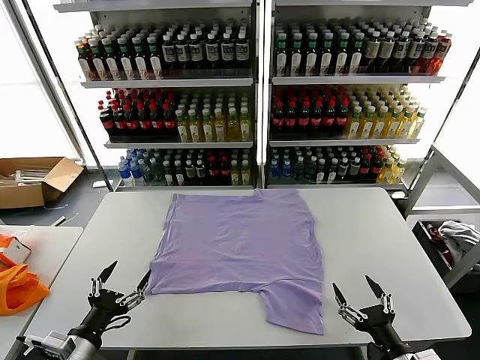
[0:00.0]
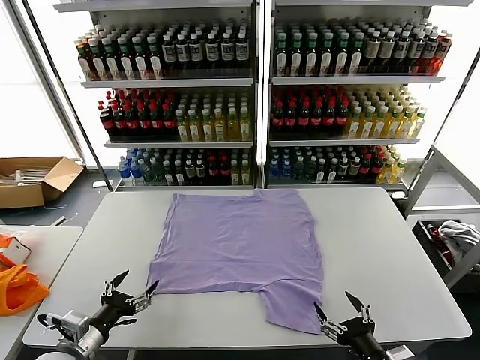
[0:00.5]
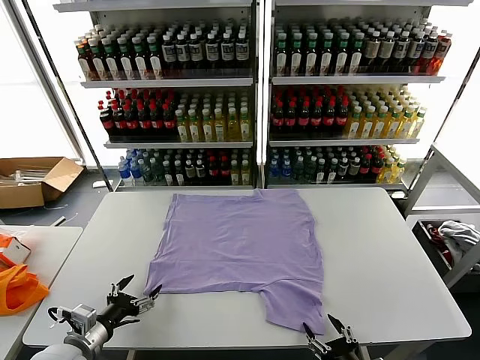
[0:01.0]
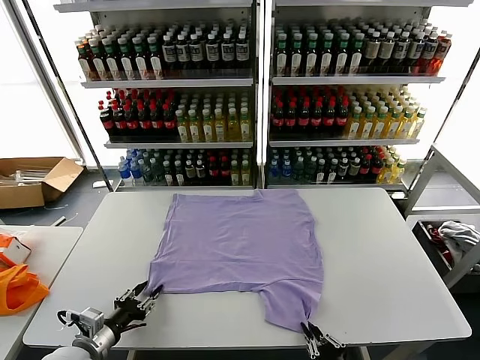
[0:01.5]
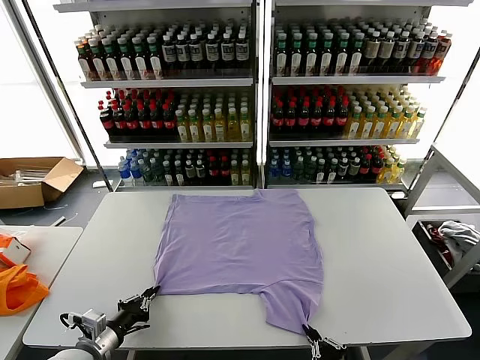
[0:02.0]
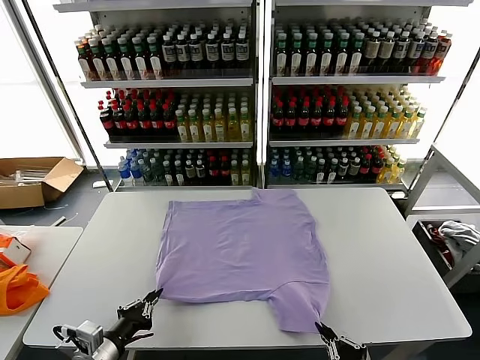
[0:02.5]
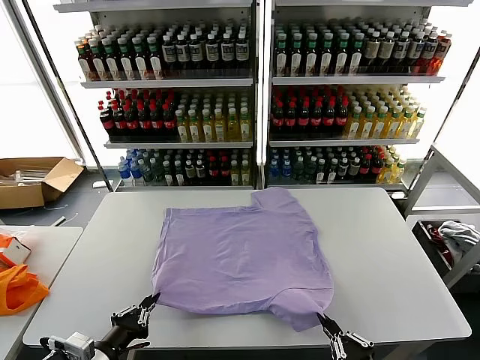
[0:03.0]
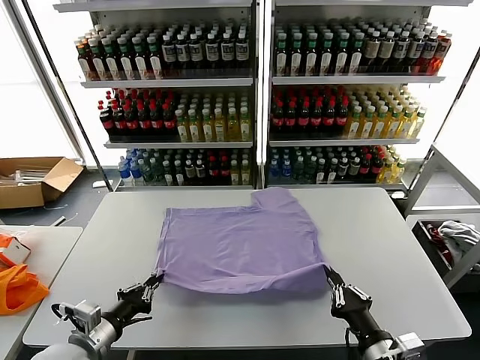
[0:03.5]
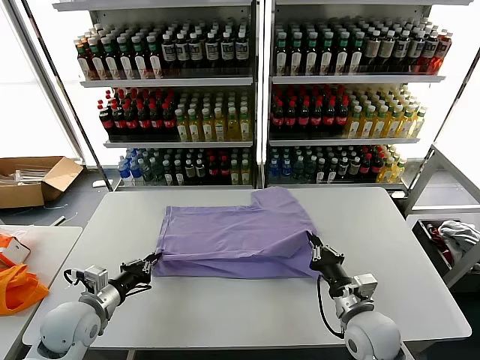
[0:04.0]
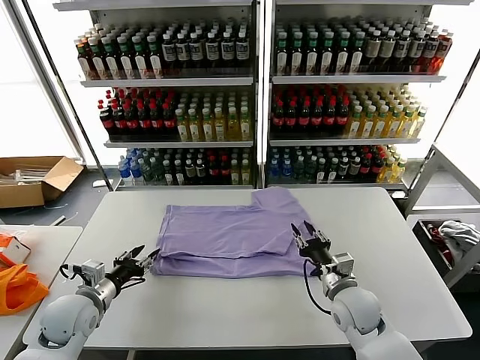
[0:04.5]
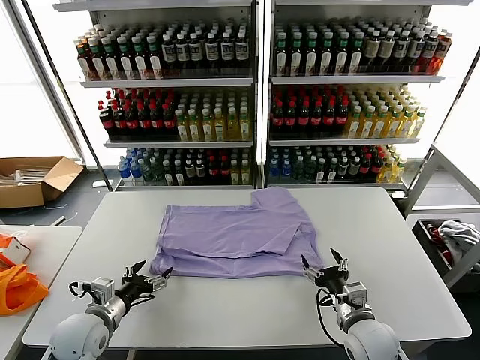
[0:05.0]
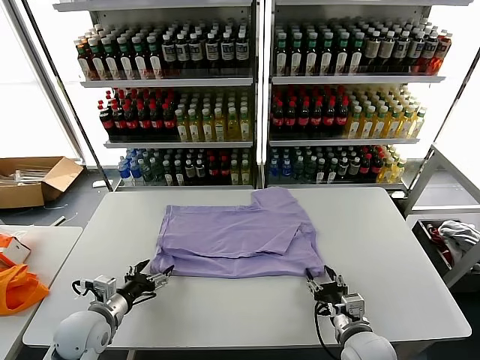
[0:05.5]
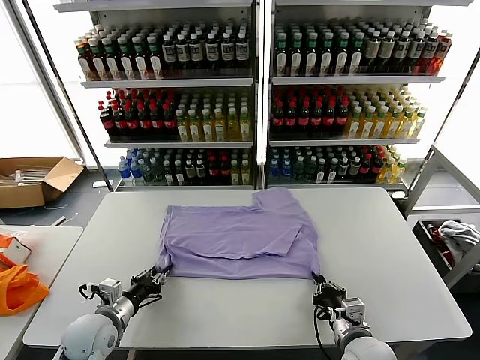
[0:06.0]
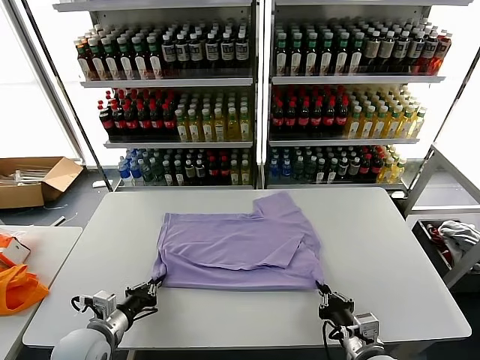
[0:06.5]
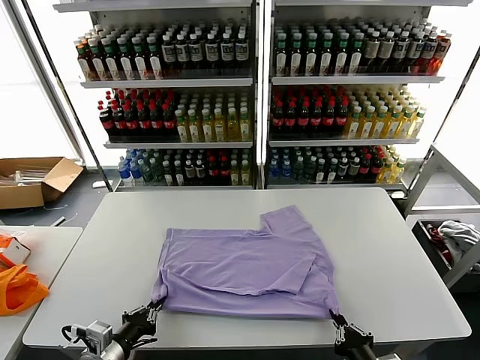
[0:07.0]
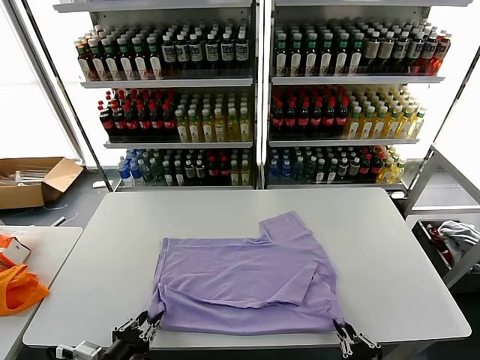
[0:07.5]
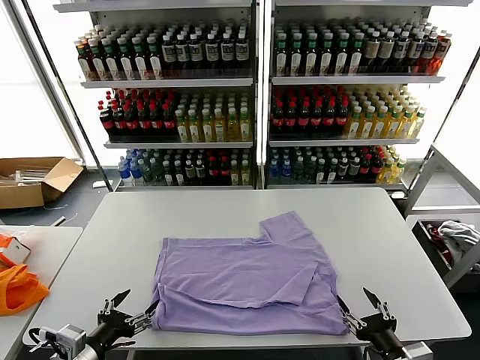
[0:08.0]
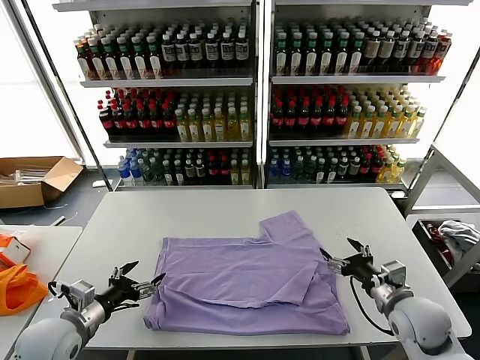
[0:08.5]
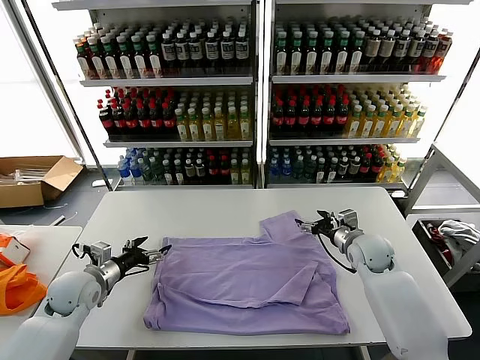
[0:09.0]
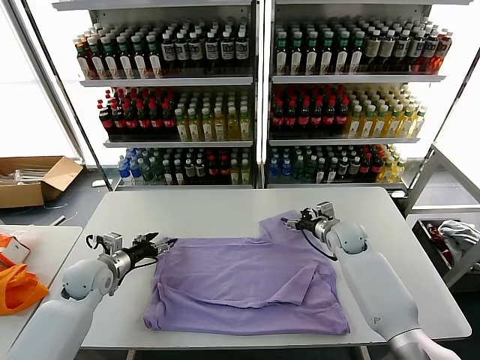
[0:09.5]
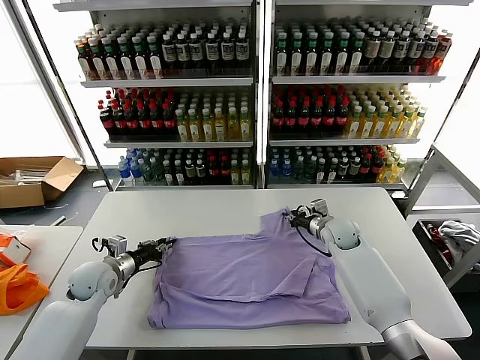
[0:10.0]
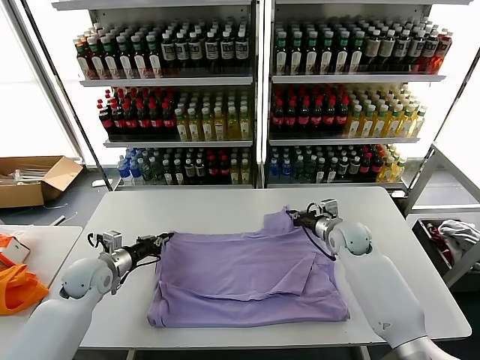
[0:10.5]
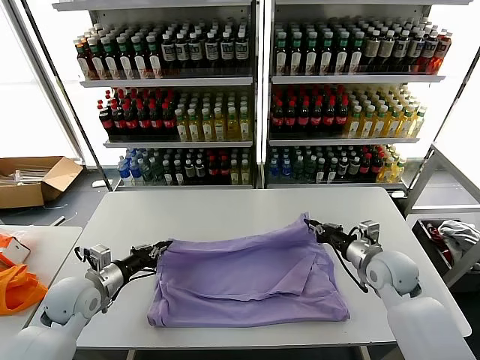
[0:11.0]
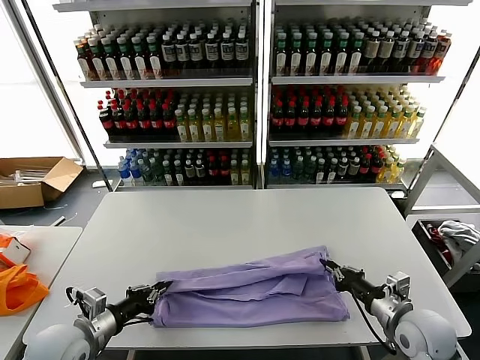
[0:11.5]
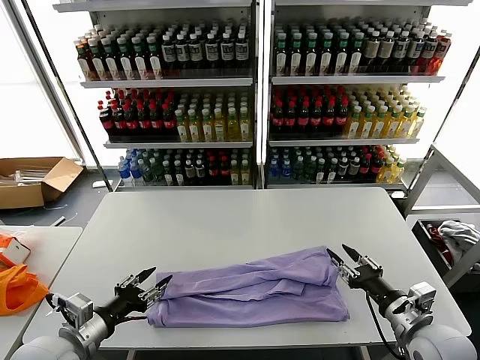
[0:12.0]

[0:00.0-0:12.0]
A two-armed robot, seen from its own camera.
Task of the whole recording: fold and organize the clothes.
Step, 0:00.0 to 0:01.5: use both grippers simultaneously to clamp the lower edge of the clothing fabric.
Step, 0:02.0 to 0:04.5: use both grippers to drag the lower edge of the fabric forward and fold it over the upper edge.
Step, 0:05.0 to 0:07.5: Drag the clothes downward with both gripper.
Step, 0:08.0 to 0:10.0: use both grippers simultaneously to clamp the upper edge of the clothing fabric.
Step, 0:10.5 to 0:11.5: use both grippers to drag the upper edge of the fabric backward and fold it over the lower edge.
0:02.0 to 0:04.0: The left gripper shifts some 10 cm forward, while the right gripper goes approximately 20 cm forward.
0:04.0 to 0:06.0: The right gripper moves backward, some 5 cm, and opens, then closes once more. Meanwhile the left gripper ends up approximately 5 cm from where it was, and opens and closes again.
0:06.0 to 0:08.0: The right gripper is displaced backward, to the right and upward by some 15 cm, and opens up. Meanwhile the left gripper heads backward and upward, covering some 15 cm, and opens.
0:08.0 to 0:10.0: The right gripper goes roughly 40 cm forward, and closes its fingers, while the left gripper travels forward by approximately 25 cm, and closes up.
0:10.0 to 0:12.0: The left gripper is displaced backward by about 20 cm; the right gripper moves backward, roughly 30 cm, and opens.

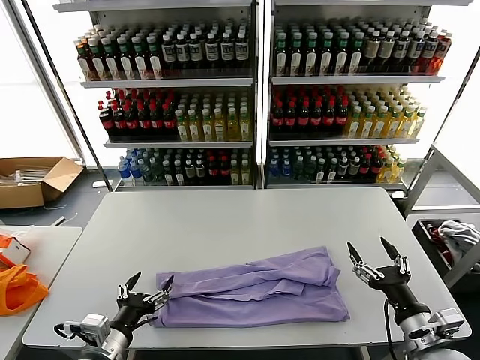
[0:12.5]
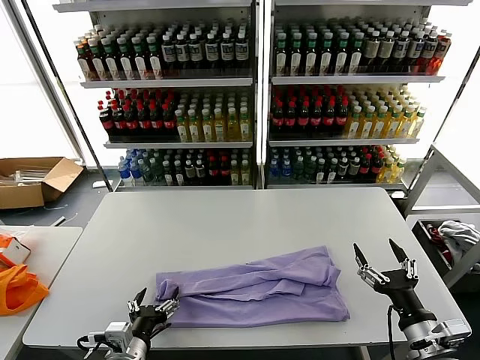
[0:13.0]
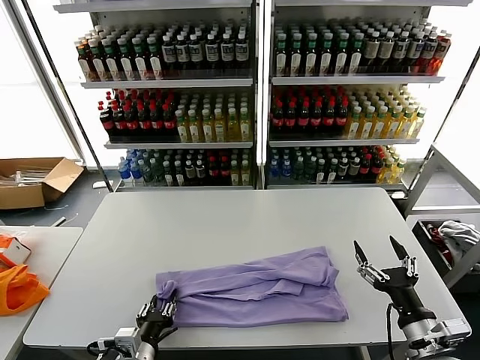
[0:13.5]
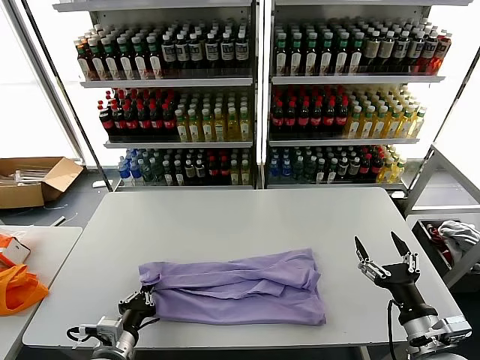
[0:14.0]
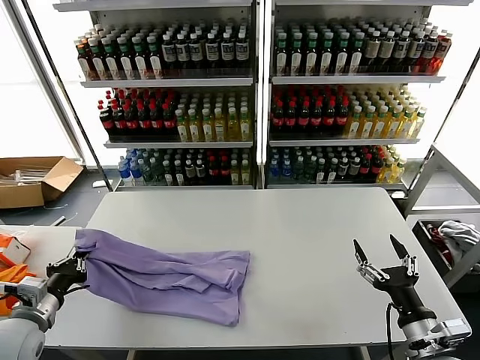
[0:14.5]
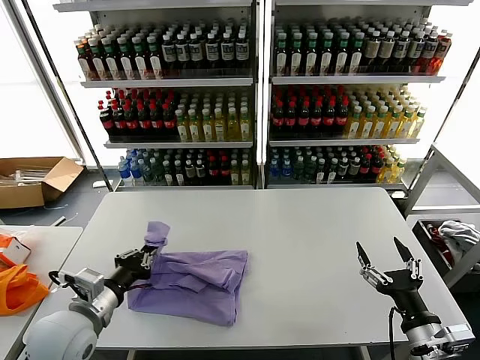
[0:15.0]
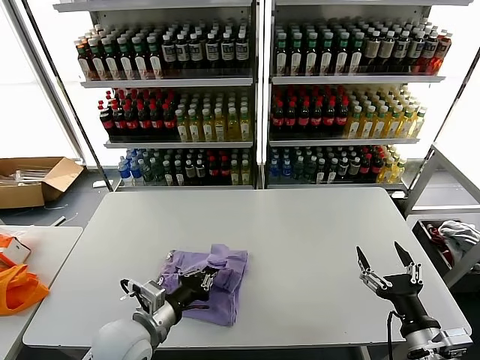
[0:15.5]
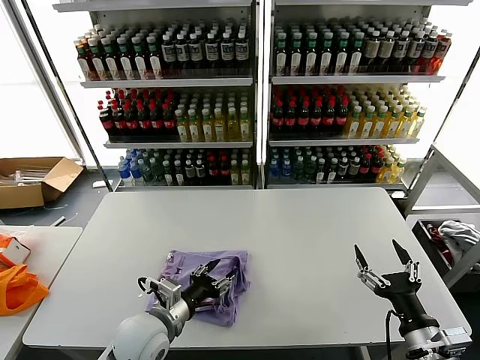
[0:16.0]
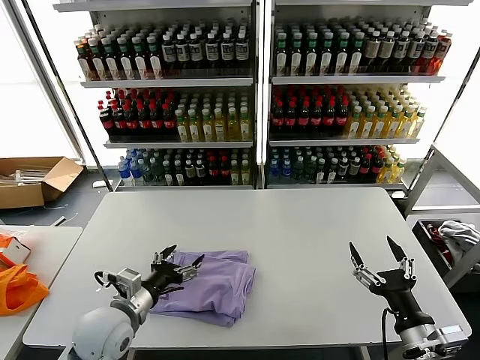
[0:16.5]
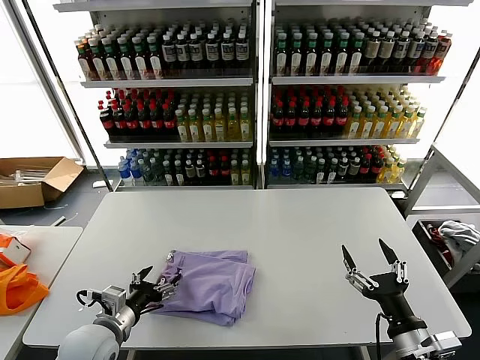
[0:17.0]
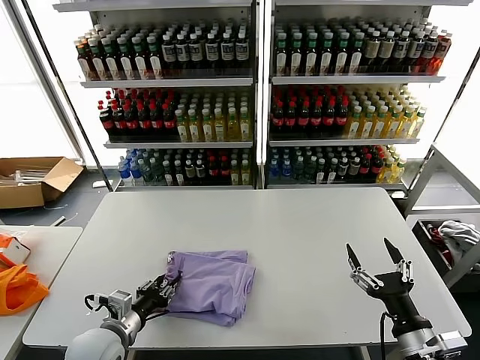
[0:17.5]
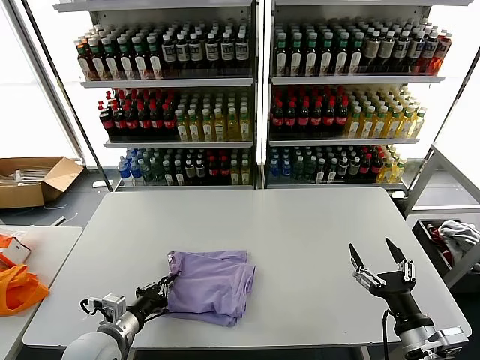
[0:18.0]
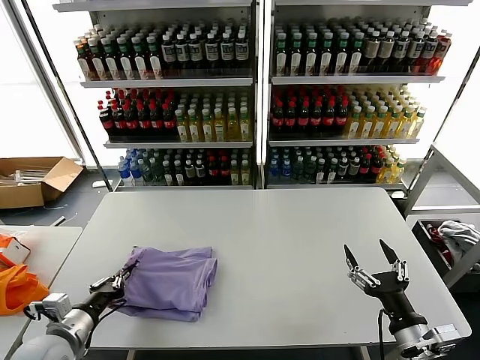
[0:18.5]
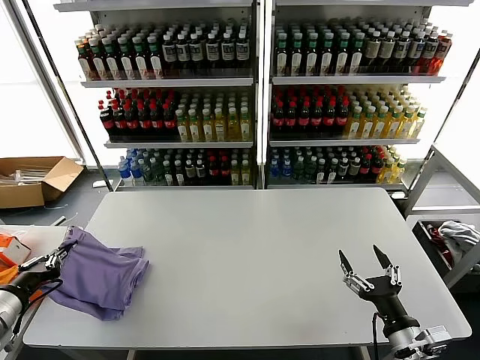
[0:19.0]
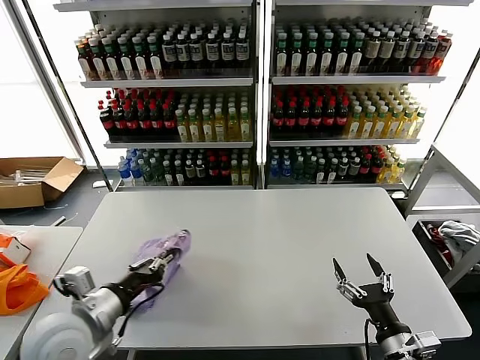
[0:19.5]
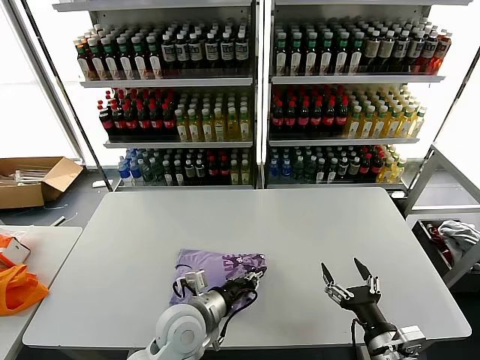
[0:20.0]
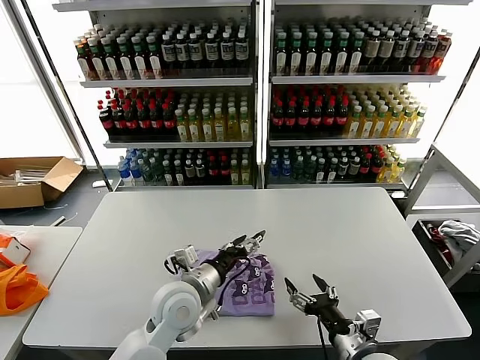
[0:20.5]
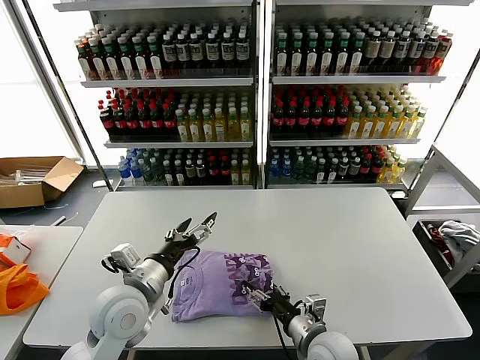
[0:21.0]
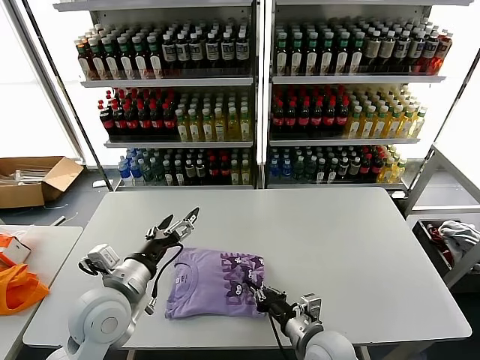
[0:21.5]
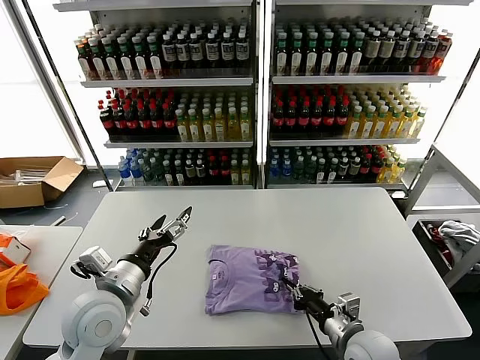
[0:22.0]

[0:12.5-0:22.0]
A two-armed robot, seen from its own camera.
Task of the whole recording: fold and organize the clothes.
Step, 0:12.5 to 0:13.5: use the left gripper to clamp the left edge of the fabric.
Step, 0:14.0 to 0:16.0: use the left gripper to drag the left edge of the fabric to the left and folds it over the right edge.
Step, 0:16.5 to 0:20.0: Flip the folded clothes over with left gripper.
0:12.5 to 0:14.5: The left gripper goes approximately 15 cm to the left, and closes.
0:14.5 to 0:16.5: The left gripper moves to the right, some 15 cm, and opens its fingers.
0:16.5 to 0:18.0: The left gripper shifts roughly 5 cm downward, and closes its fingers.
0:18.0 to 0:20.0: The left gripper goes approximately 15 cm to the right.
0:20.0 to 0:22.0: The right gripper is displaced forward and to the left by approximately 10 cm, and closes, while the left gripper moves to the left and upward, about 15 cm, and opens.

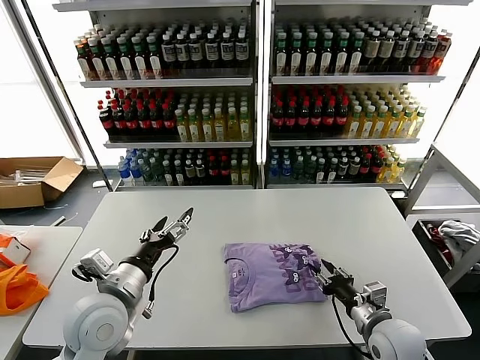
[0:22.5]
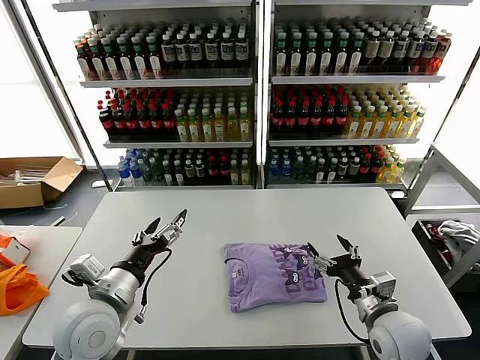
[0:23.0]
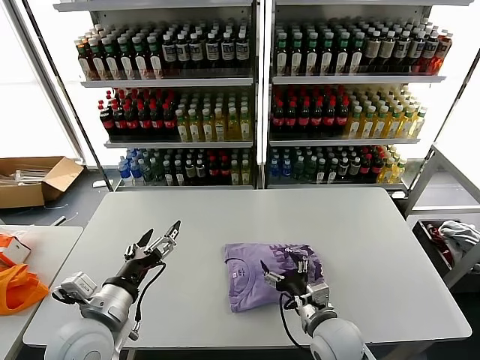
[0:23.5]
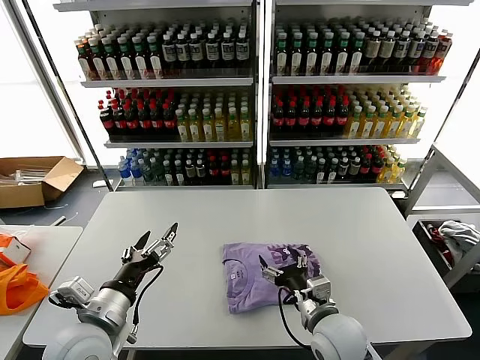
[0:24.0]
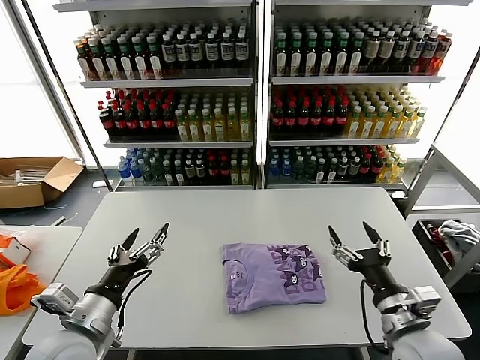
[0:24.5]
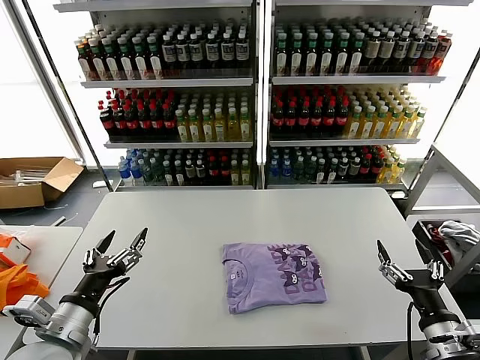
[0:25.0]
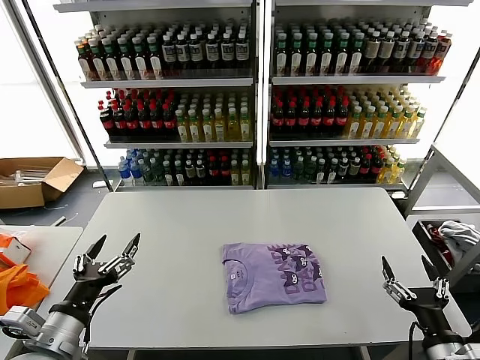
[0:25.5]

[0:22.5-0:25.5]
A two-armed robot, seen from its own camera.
Task of the whole recording: fold and organize the clothes.
0:22.5 to 0:24.0: The right gripper heads to the left, covering about 15 cm, and opens up.
0:24.0 to 0:25.5: The left gripper heads to the left, covering some 5 cm; the right gripper moves to the right and backward, roughly 25 cm.
